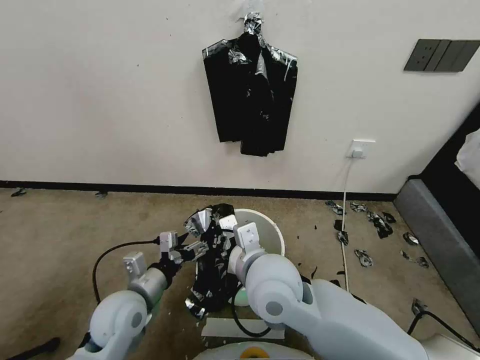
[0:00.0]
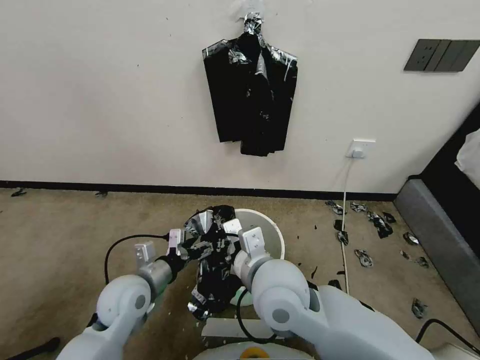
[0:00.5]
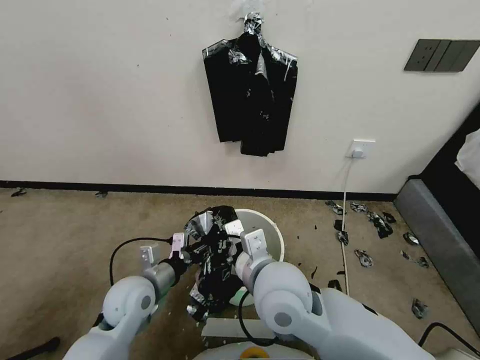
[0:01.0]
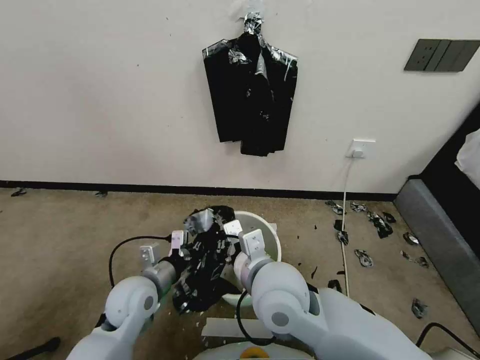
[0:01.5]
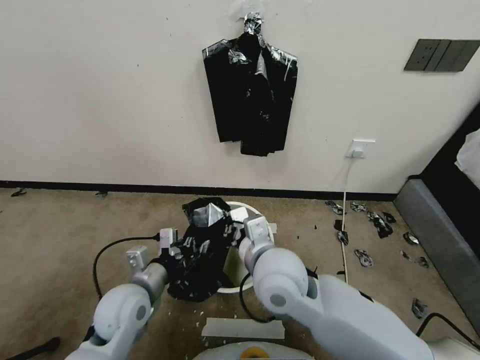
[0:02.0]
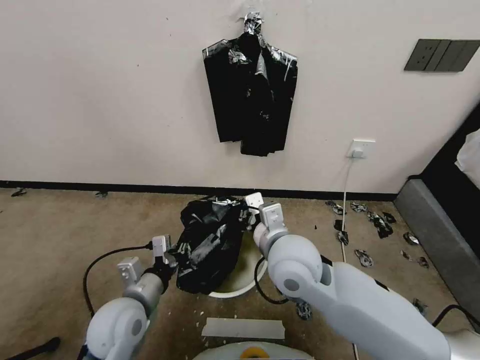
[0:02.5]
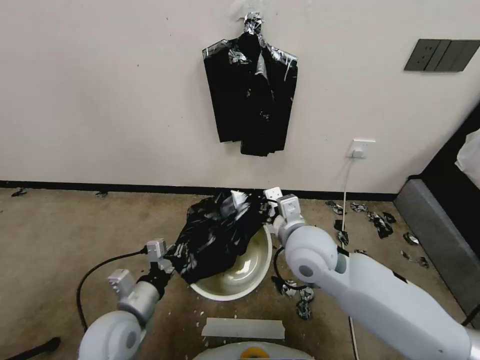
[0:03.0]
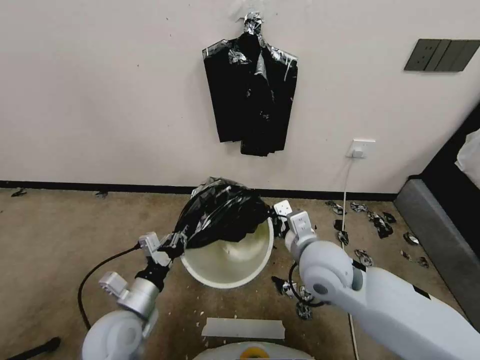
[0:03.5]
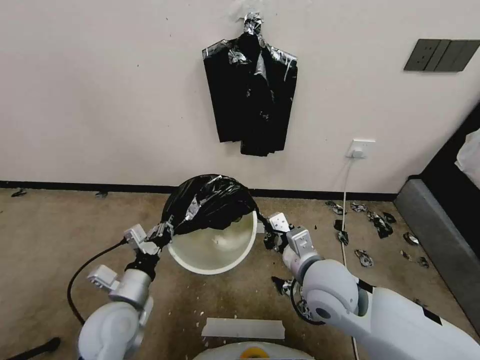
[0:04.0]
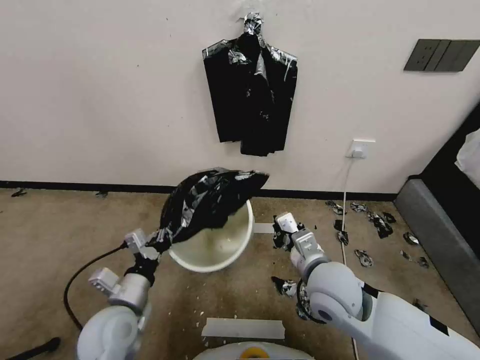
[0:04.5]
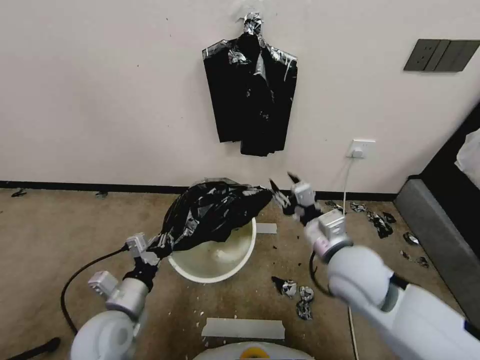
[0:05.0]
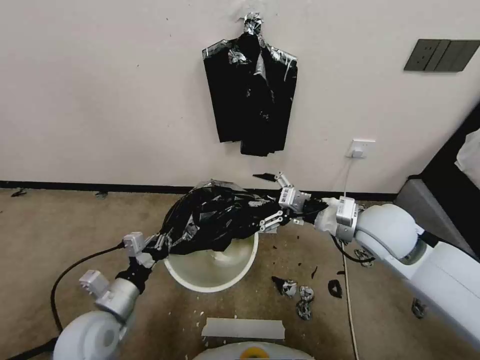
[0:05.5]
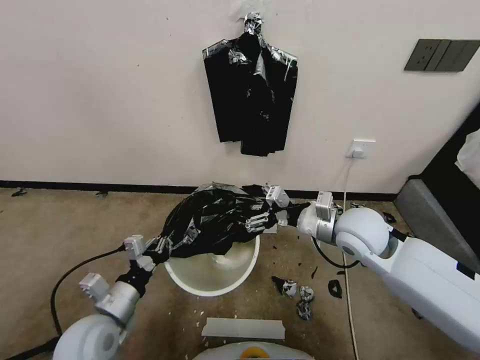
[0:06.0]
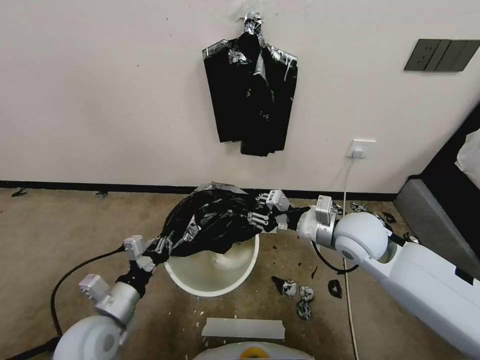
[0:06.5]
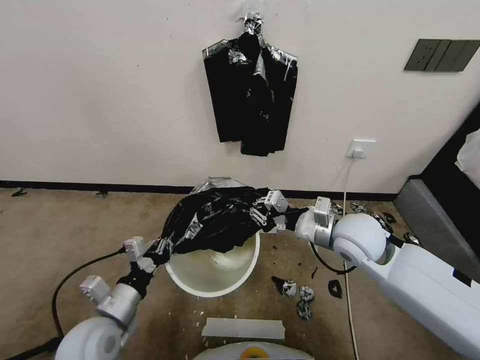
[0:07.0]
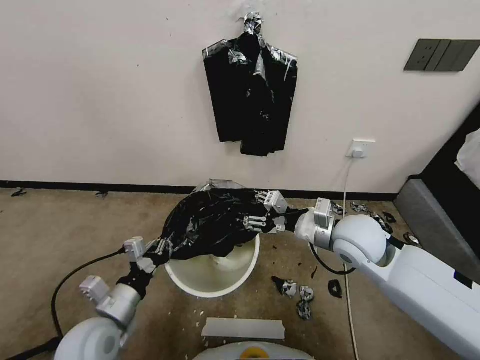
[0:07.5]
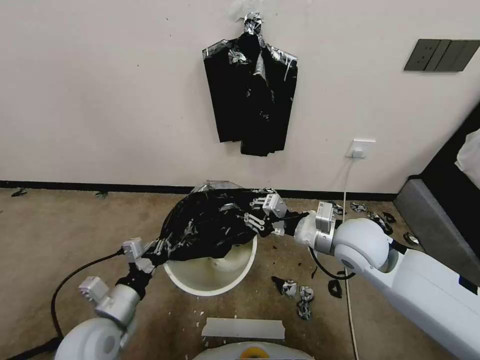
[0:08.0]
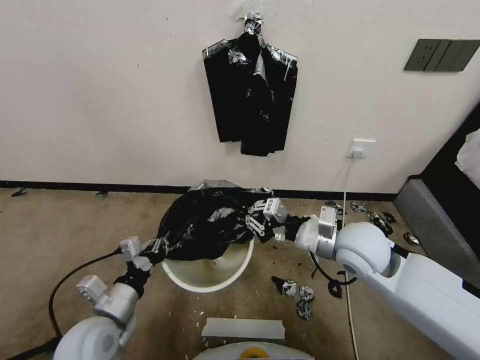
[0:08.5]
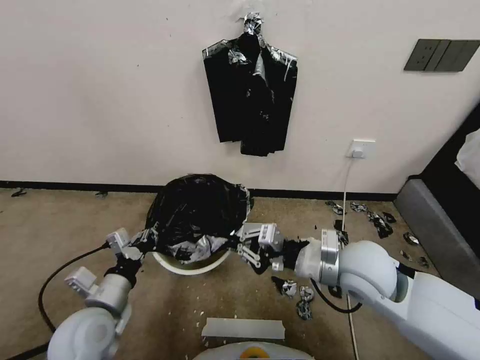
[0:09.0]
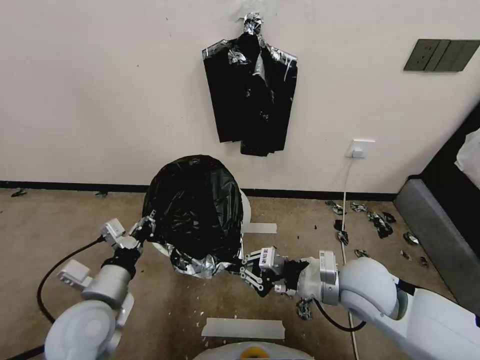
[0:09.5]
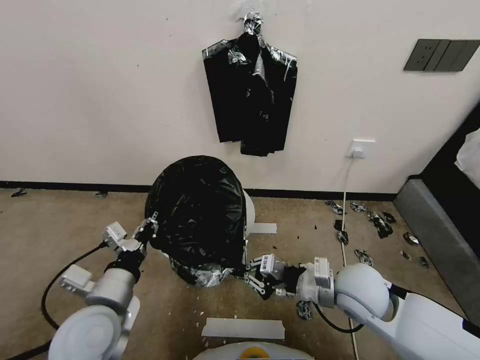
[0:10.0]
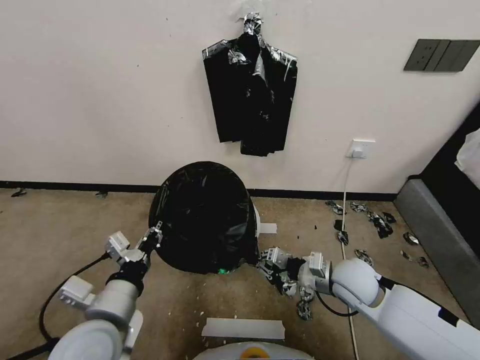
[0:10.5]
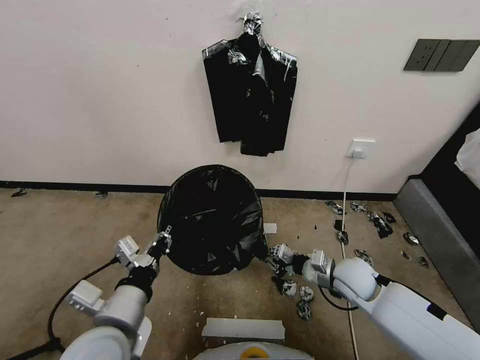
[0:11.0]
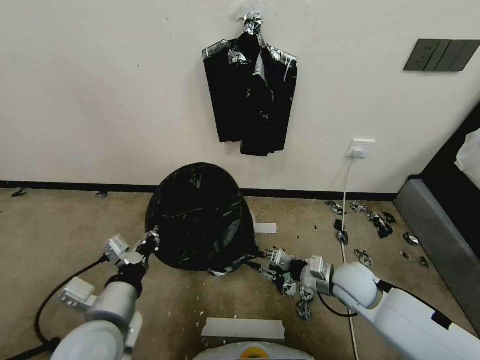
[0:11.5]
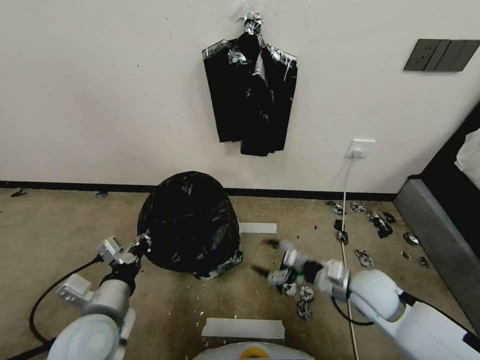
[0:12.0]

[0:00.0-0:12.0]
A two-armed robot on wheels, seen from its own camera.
Task of the whole recording: Place a trash bag onto the trash bin.
0:00.0 to 0:02.0: The left gripper closes up.
0:02.0 to 0:04.0: The right gripper heads to the right, covering approximately 10 cm.
0:04.0 to 0:06.0: The right gripper heads forward and to the right, covering some 10 cm, and opens its fingers.
0:06.0 to 0:08.0: The right gripper closes up.
0:08.0 to 0:10.0: The right gripper is displaced downward and backward by about 10 cm; the left gripper moves upward, some 5 cm.
0:10.0 to 0:12.0: The right gripper shifts some 10 cm downward and to the right, and opens.

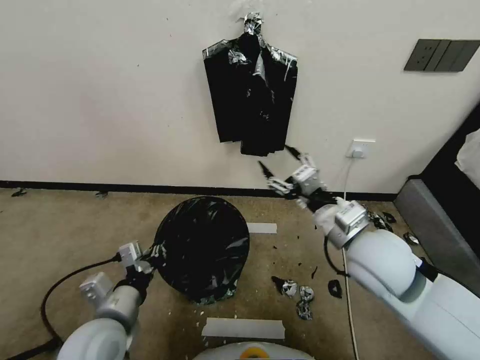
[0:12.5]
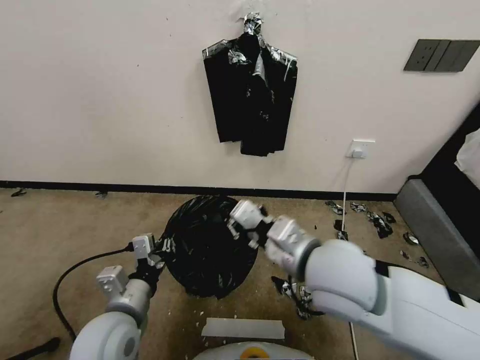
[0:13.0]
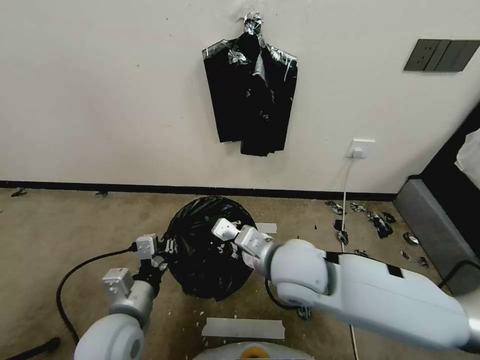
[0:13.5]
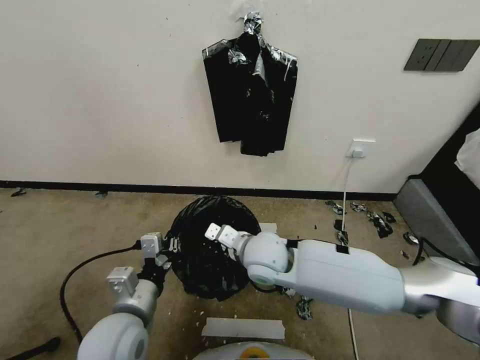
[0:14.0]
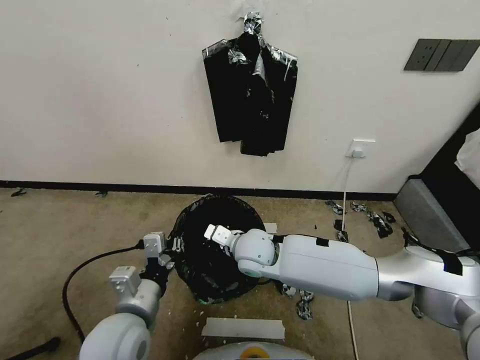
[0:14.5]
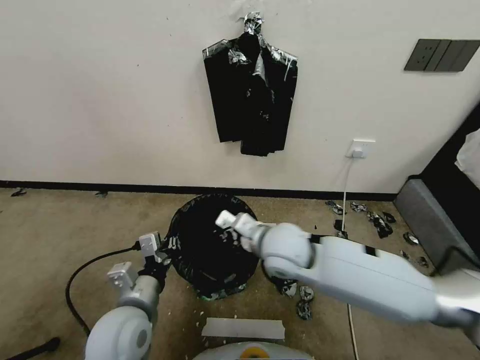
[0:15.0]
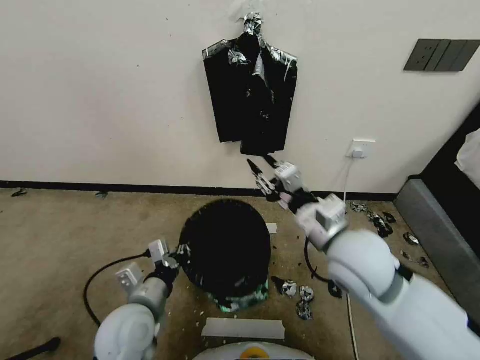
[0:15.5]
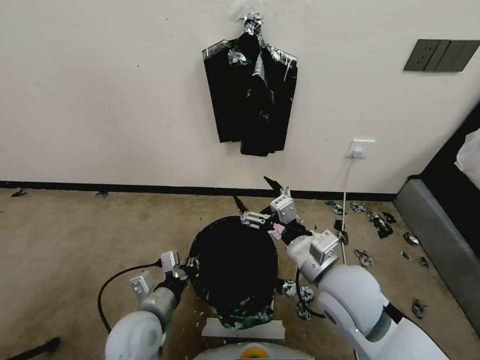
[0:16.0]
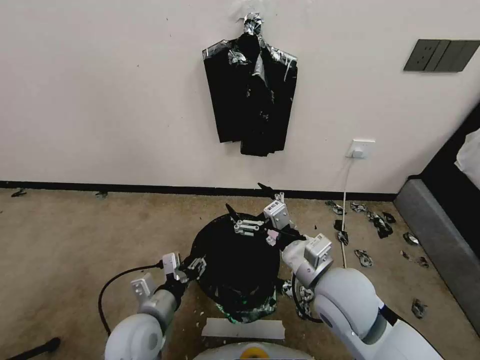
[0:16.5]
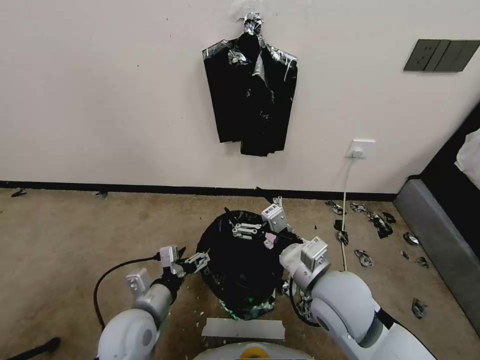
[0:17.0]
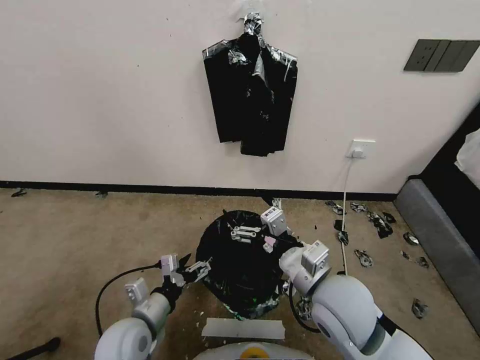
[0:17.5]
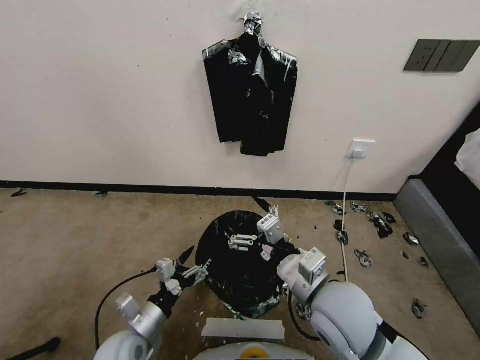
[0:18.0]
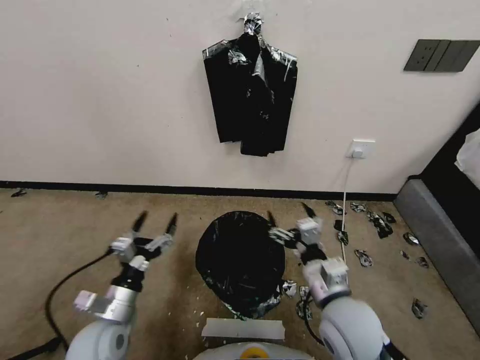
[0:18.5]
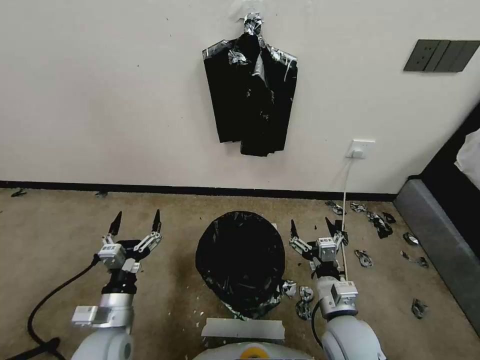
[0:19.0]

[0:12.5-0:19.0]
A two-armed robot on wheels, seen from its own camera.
Task of the whole recording: Place a trash bag onto the trash bin.
0:12.5 to 0:14.5: The right gripper moves to the left, downward and forward, about 25 cm, and closes.
0:14.5 to 0:17.0: The right gripper travels to the right, backward and upward by roughly 20 cm, and opens, while the left gripper moves downward, approximately 5 cm, and opens.
0:17.0 to 0:19.0: The right gripper moves downward, approximately 10 cm.

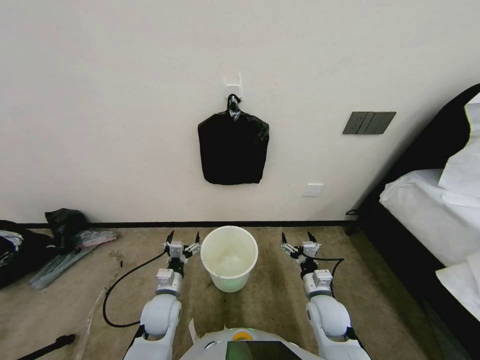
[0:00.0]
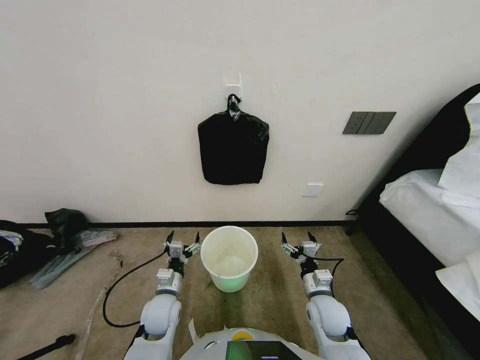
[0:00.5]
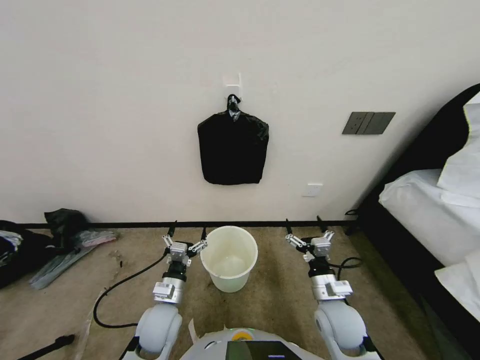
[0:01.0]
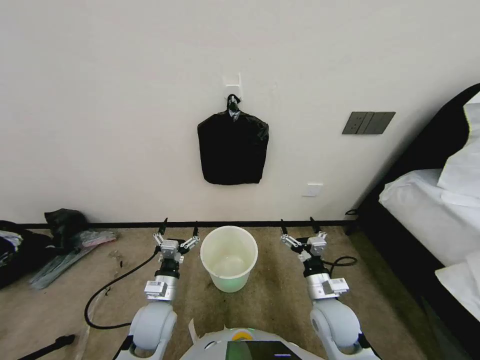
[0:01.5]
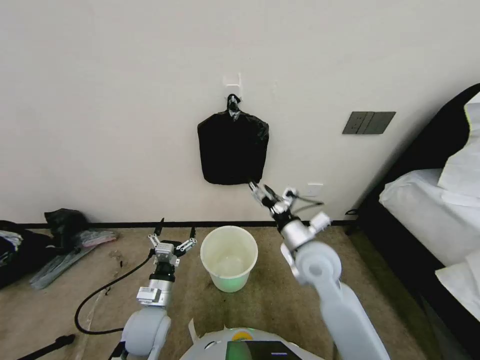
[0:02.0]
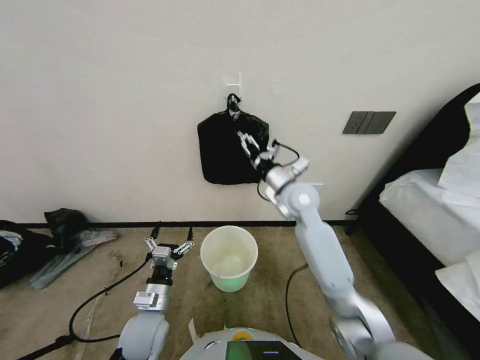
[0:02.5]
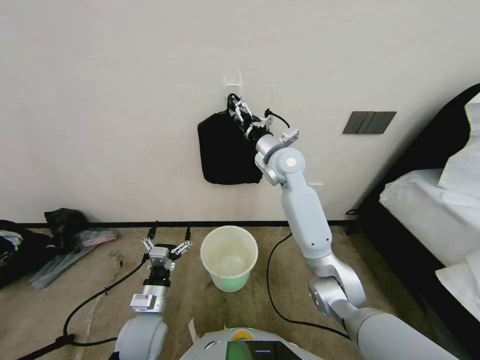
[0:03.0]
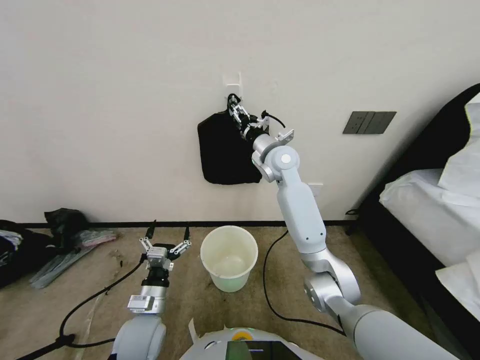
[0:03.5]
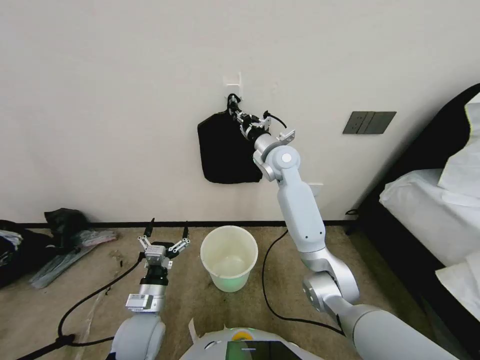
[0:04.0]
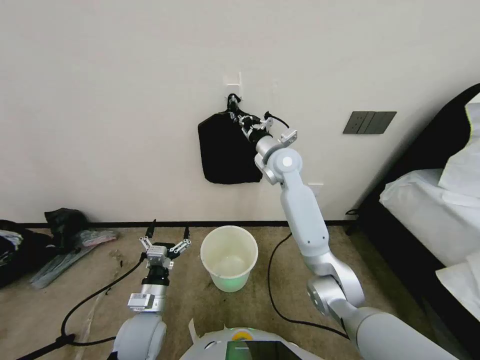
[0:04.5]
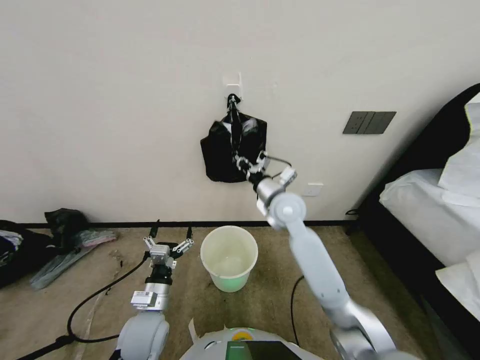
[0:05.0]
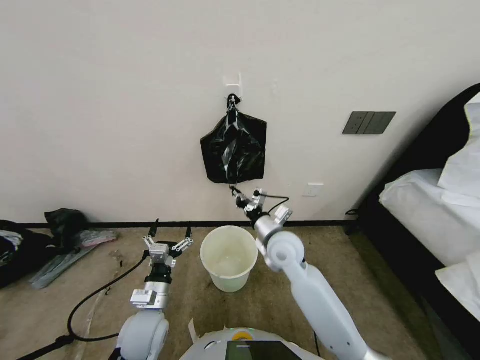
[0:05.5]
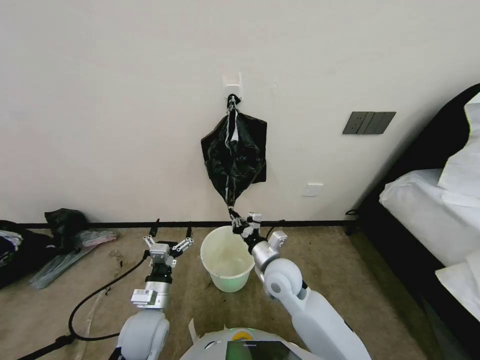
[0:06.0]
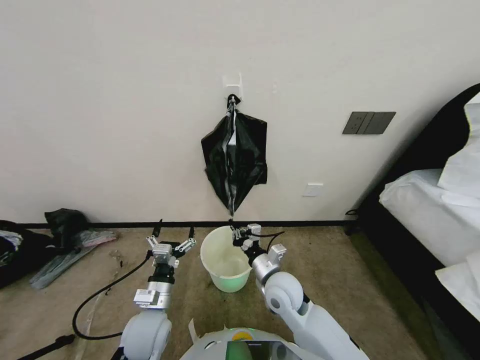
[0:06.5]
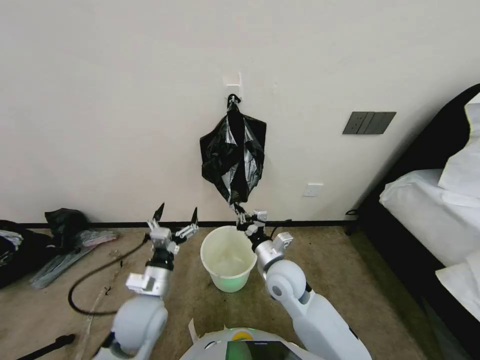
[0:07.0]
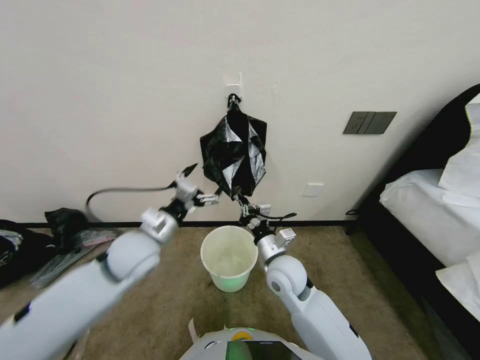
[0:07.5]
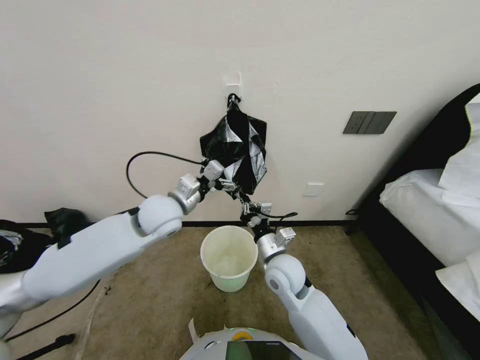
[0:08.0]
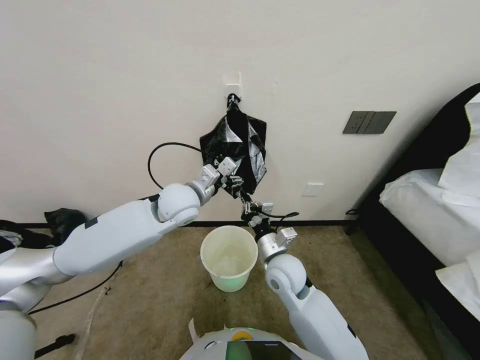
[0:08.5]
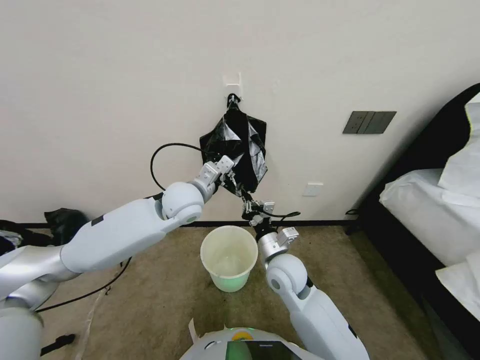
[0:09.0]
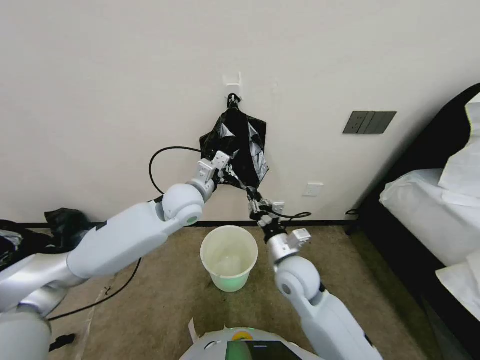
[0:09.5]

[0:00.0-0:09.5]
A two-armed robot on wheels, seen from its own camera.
Task of the whole recording: Place a trash bag onto the trash bin.
0:02.0 to 0:04.0: The right gripper goes some 35 cm forward and upward, and closes its fingers.
0:04.0 to 0:05.5: The right gripper heads backward and downward, covering some 25 cm.
0:05.5 to 0:07.5: The left gripper is displaced upward and forward by about 20 cm; the right gripper heads backward, covering approximately 5 cm.
0:07.5 to 0:09.5: The left gripper moves forward, to the right and upward, roughly 15 cm, and closes.
